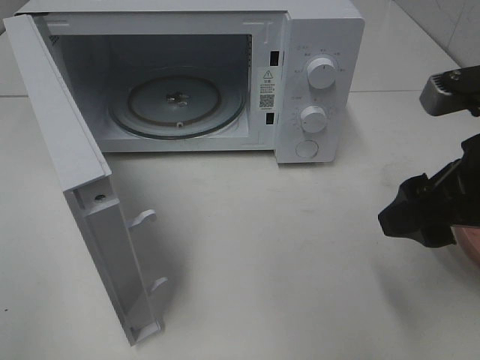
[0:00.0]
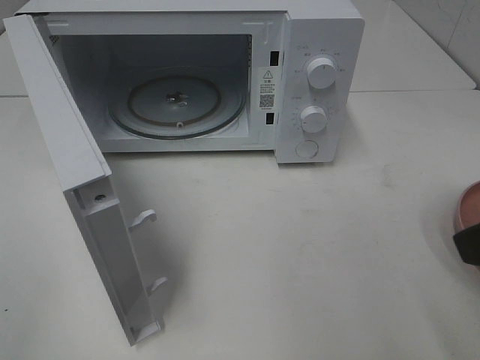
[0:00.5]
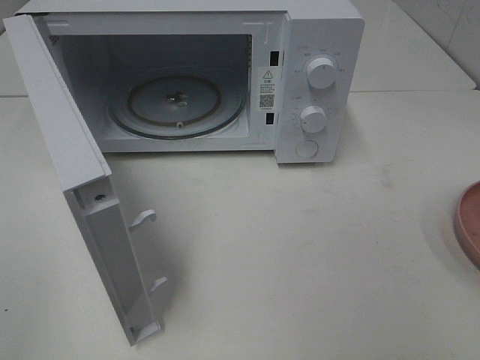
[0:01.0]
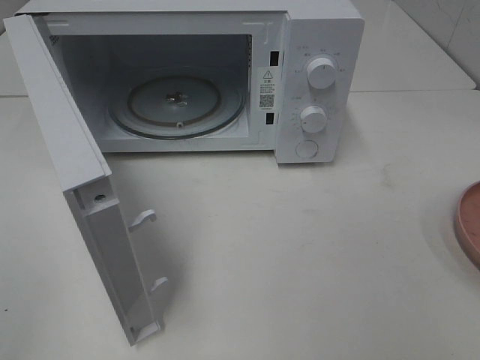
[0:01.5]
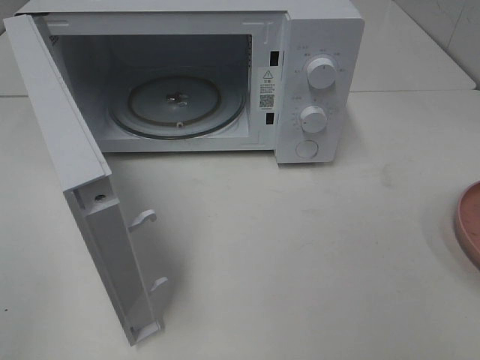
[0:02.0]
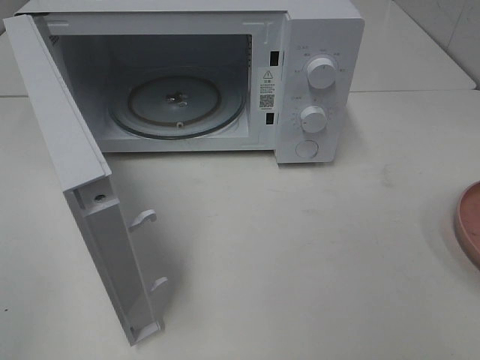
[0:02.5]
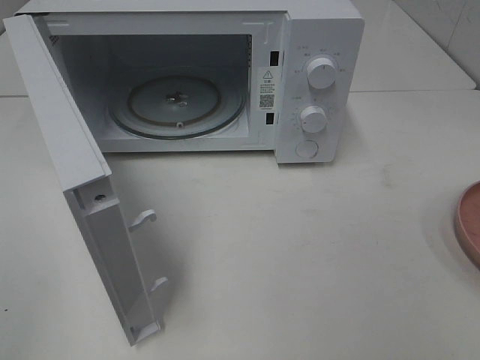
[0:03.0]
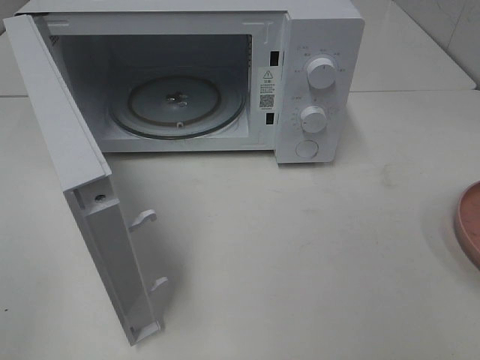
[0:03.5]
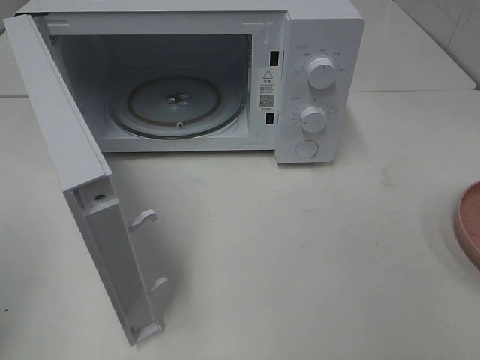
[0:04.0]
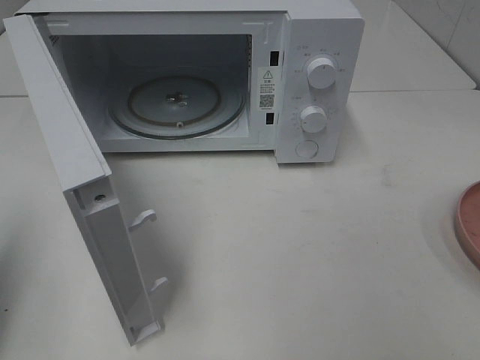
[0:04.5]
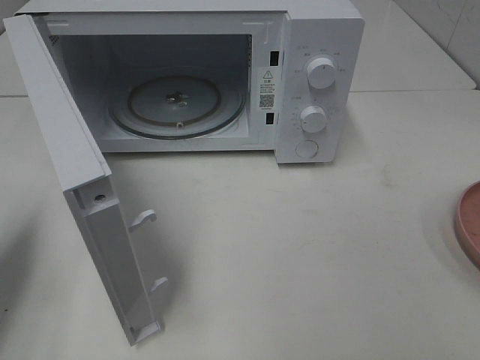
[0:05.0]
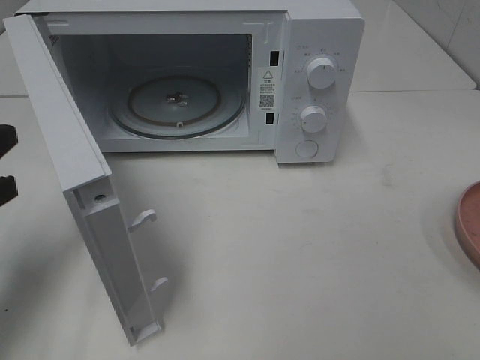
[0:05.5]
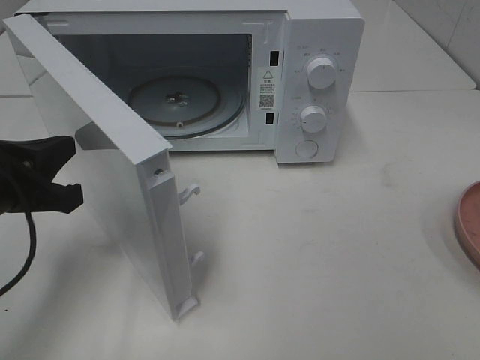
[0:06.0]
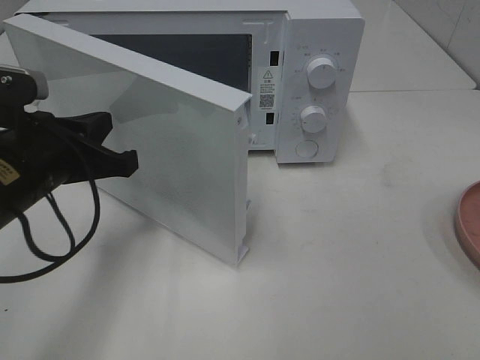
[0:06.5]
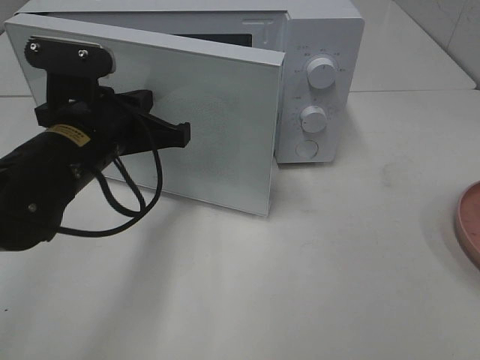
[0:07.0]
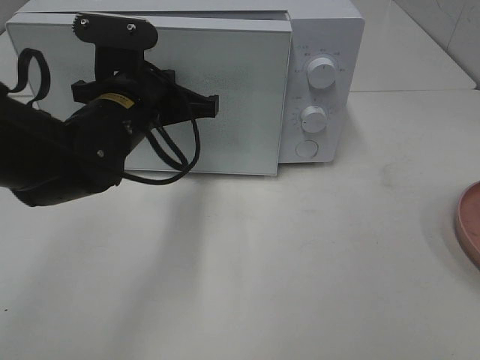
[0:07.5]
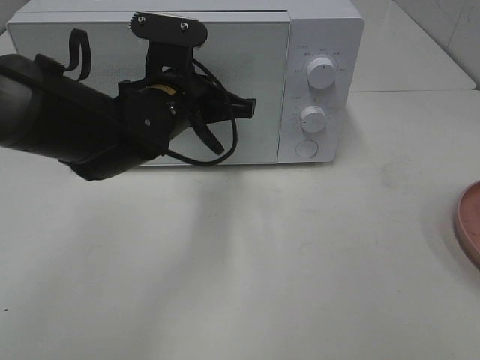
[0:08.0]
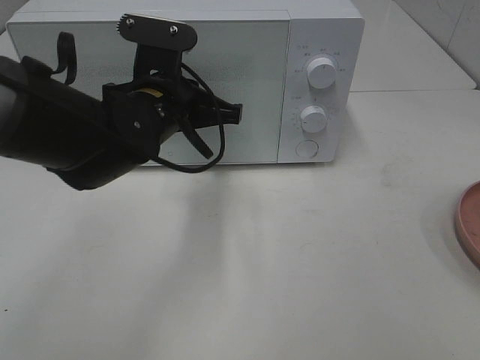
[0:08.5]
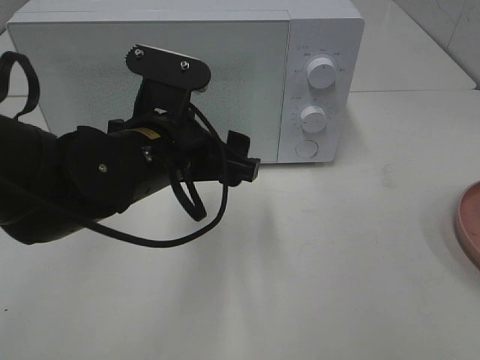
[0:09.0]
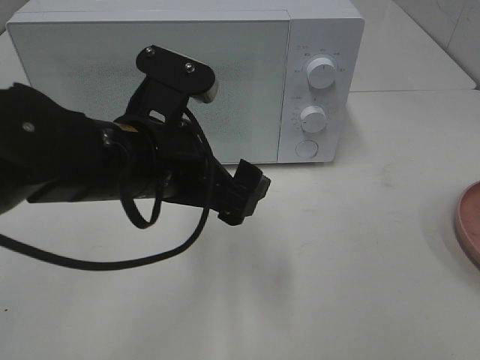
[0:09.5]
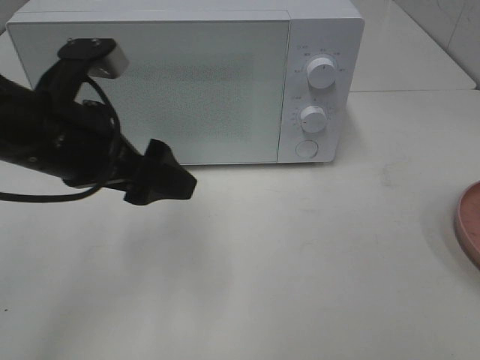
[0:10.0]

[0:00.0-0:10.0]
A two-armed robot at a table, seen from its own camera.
Task of the whole recording: Heat the burger.
Step, 0:00.0 to 0:09.0: Left hand: close the microwave door.
0:00.0 to 0:02.0: The right gripper moves backward and to the right, about 20 cm.
0:04.0 to 0:06.0: The left gripper shifts about 20 cm forward, downward and to the right.
0:06.0 to 0:08.0: The left gripper shifts about 20 cm to the right and forward.
0:08.0 to 0:10.0: The left gripper heads backward and to the left, covering roughly 15 cm, and opens up.

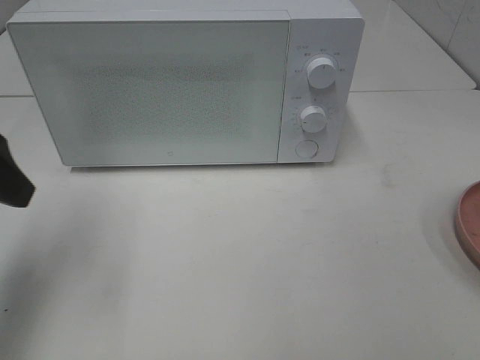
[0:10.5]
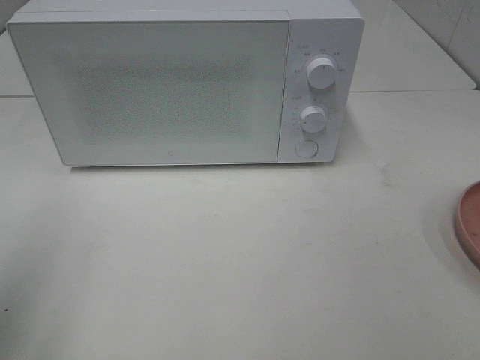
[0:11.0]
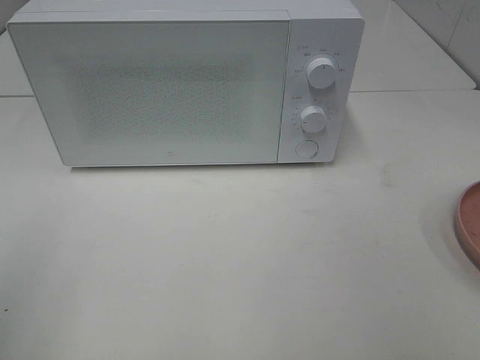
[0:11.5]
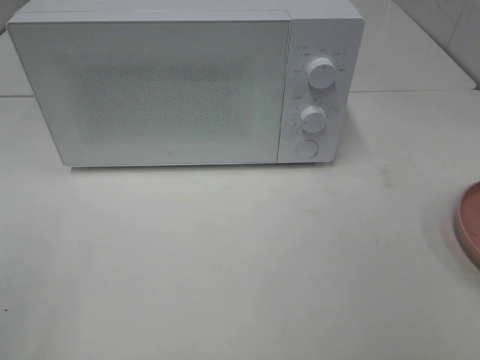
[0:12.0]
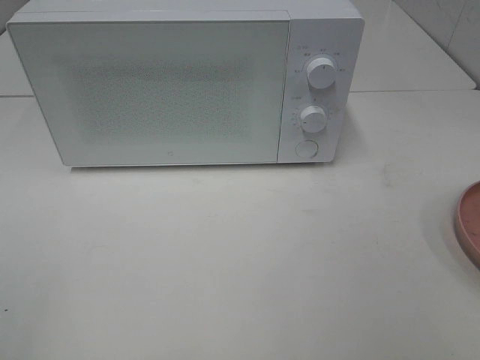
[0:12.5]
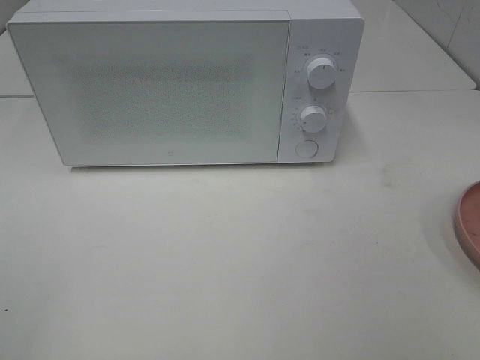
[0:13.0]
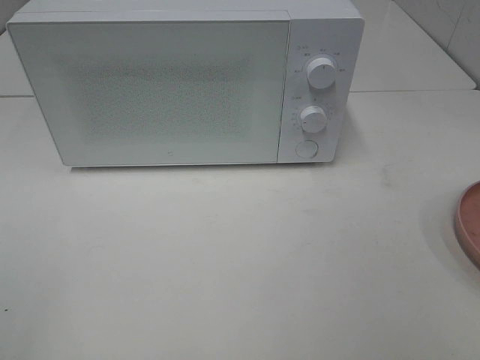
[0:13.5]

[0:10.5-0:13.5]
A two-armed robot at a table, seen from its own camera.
Task of the whole recording: Heat the burger.
0:10.5 to 0:12.0: The left gripper travels backward by about 20 cm.
